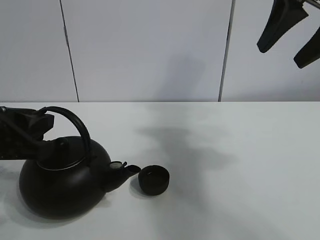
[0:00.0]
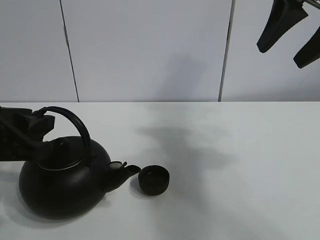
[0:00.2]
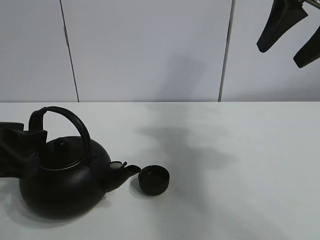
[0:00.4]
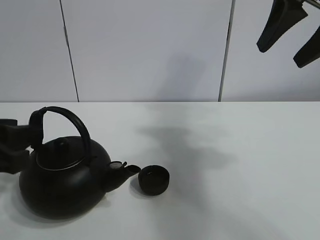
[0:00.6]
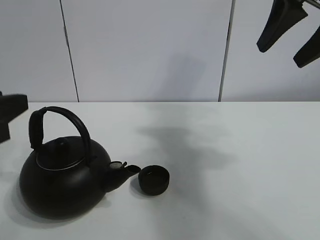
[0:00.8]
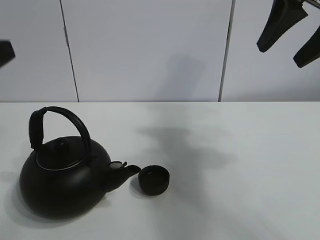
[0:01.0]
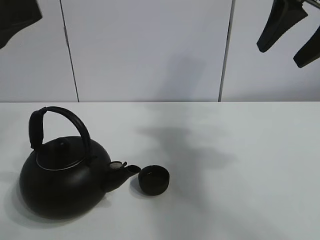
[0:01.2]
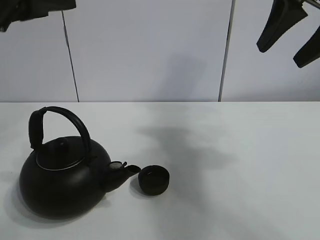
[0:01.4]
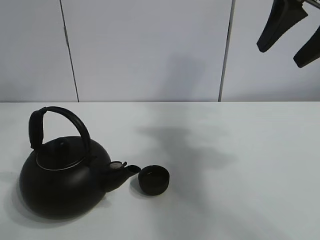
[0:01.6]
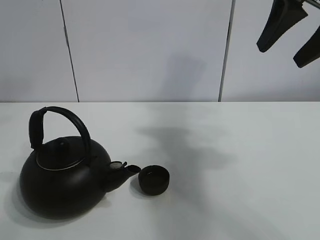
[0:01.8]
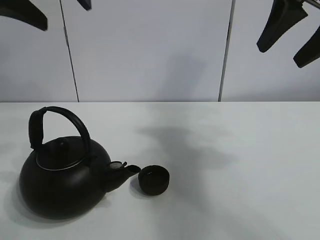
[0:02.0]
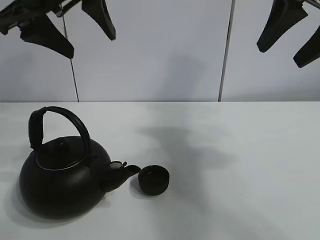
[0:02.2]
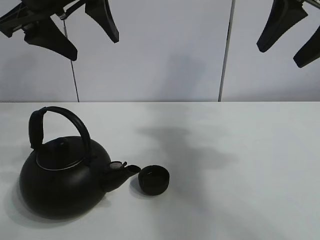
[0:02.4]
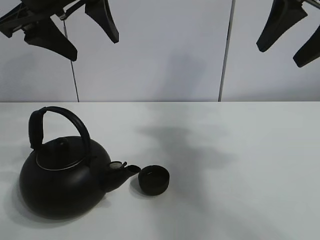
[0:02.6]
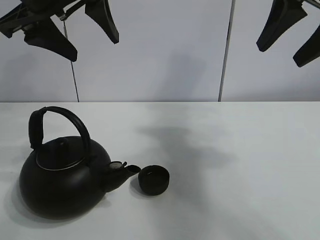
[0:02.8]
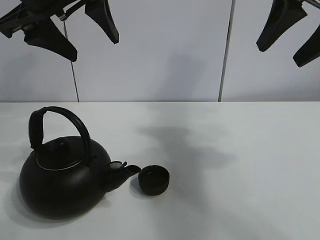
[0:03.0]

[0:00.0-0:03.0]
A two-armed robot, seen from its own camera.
Task of the whole recording: pour tea into the teacup.
0.0 to 1.6 s: The left gripper moves upward, about 20 cm, and opens.
1.6 to 3.0 s: The left gripper moves forward, about 5 cm.

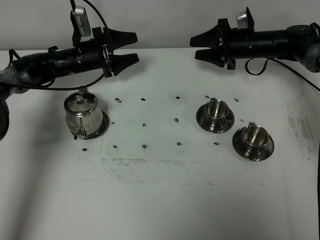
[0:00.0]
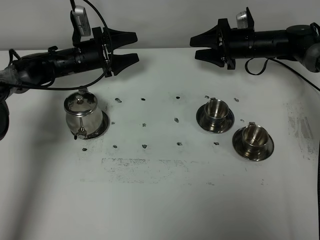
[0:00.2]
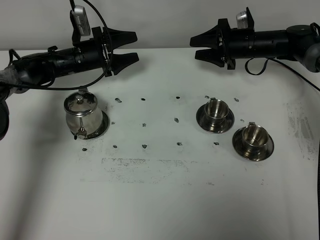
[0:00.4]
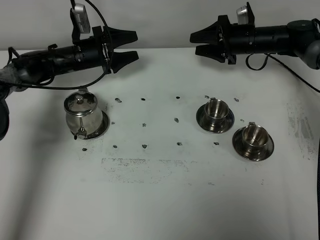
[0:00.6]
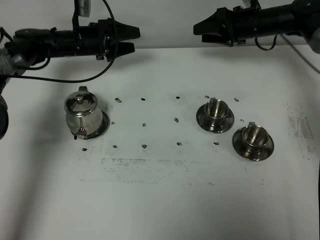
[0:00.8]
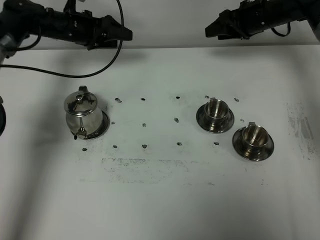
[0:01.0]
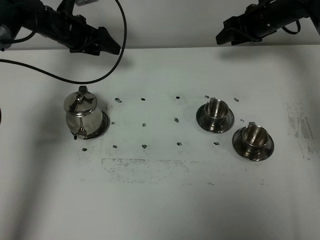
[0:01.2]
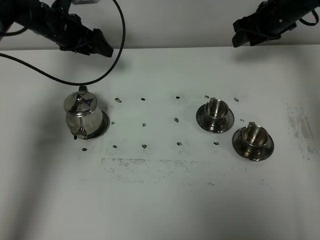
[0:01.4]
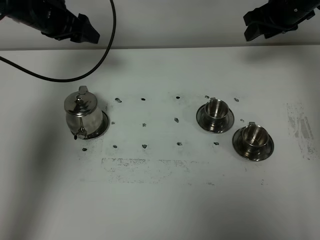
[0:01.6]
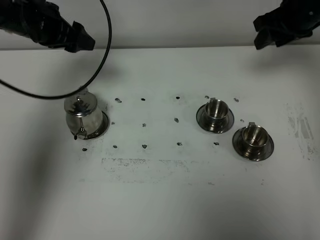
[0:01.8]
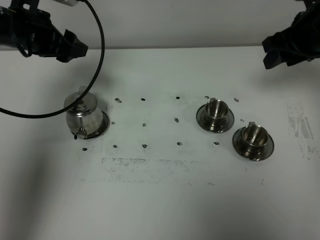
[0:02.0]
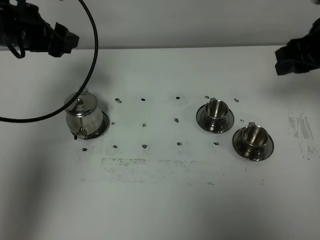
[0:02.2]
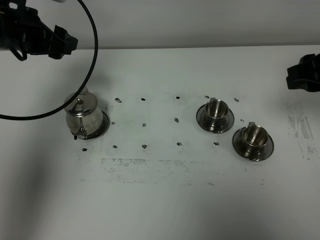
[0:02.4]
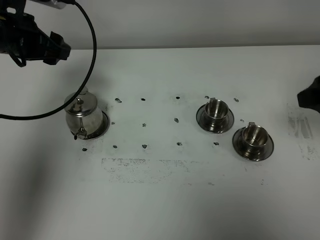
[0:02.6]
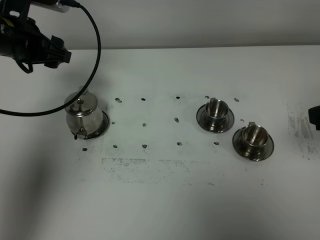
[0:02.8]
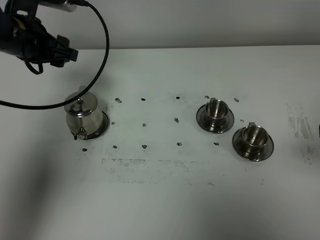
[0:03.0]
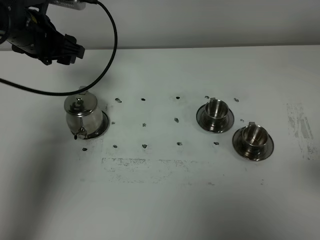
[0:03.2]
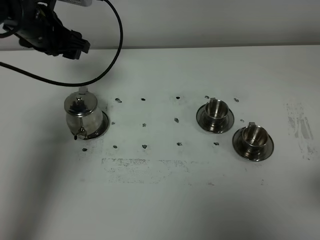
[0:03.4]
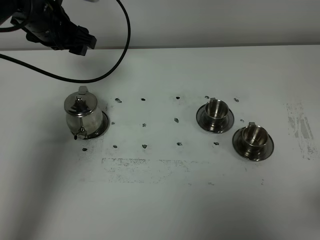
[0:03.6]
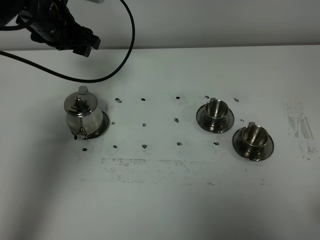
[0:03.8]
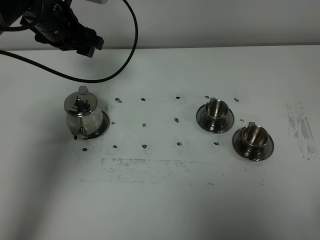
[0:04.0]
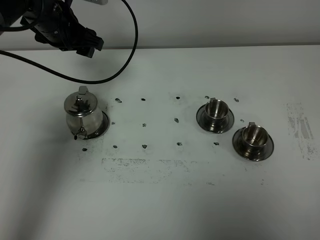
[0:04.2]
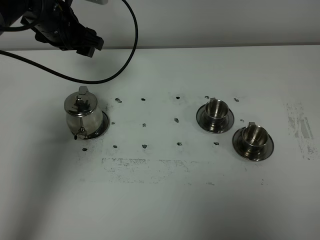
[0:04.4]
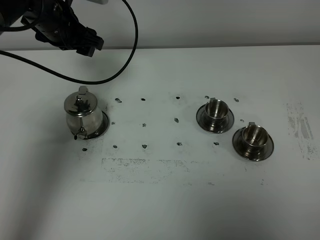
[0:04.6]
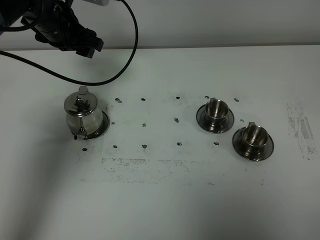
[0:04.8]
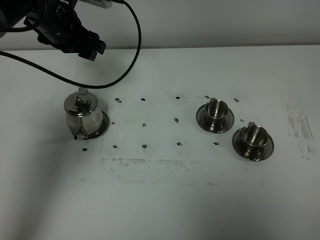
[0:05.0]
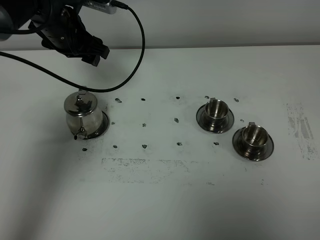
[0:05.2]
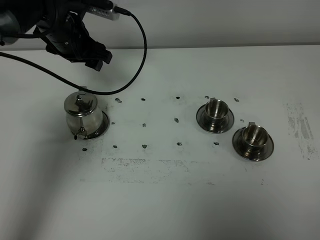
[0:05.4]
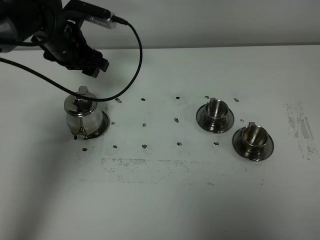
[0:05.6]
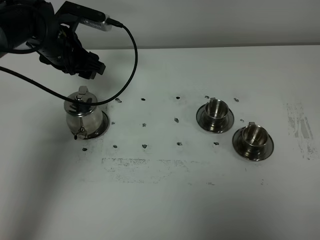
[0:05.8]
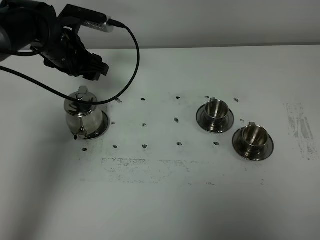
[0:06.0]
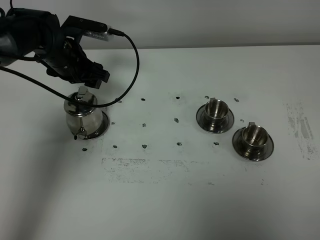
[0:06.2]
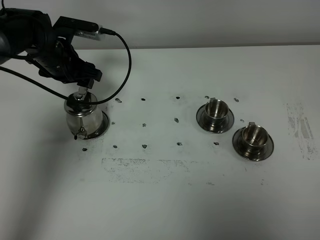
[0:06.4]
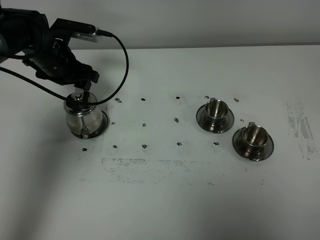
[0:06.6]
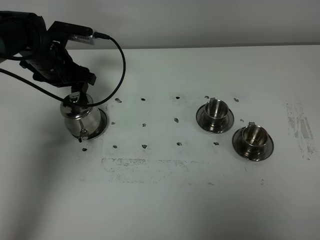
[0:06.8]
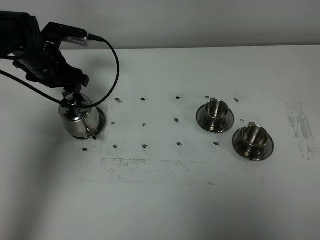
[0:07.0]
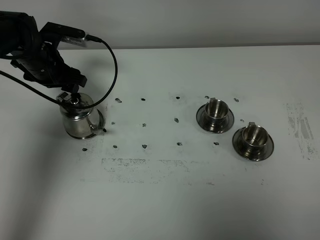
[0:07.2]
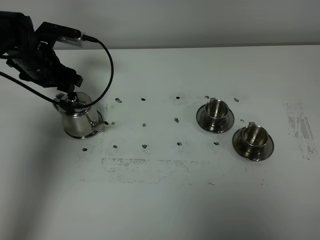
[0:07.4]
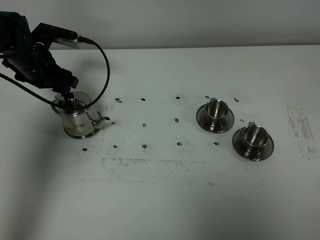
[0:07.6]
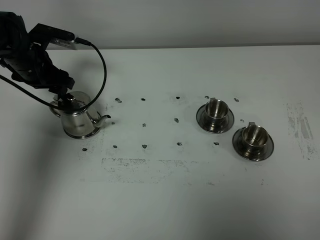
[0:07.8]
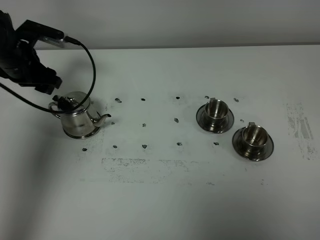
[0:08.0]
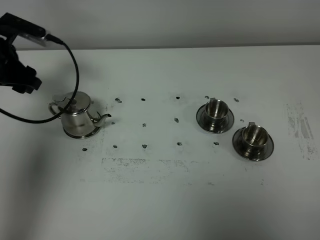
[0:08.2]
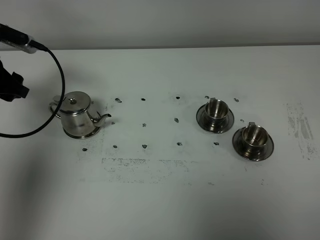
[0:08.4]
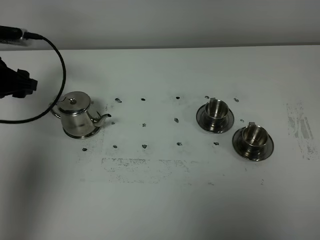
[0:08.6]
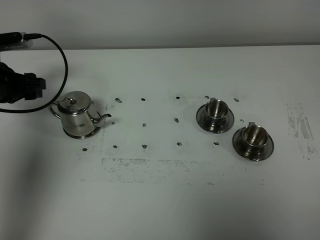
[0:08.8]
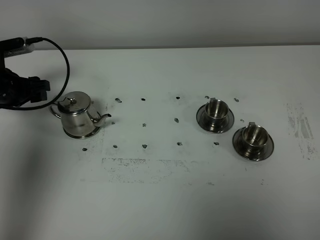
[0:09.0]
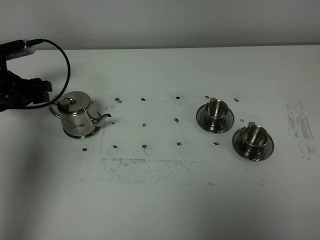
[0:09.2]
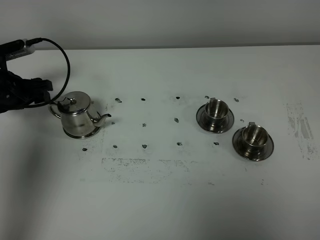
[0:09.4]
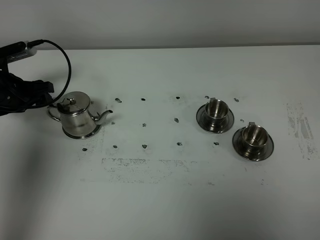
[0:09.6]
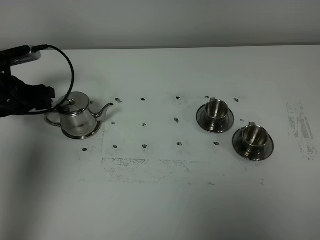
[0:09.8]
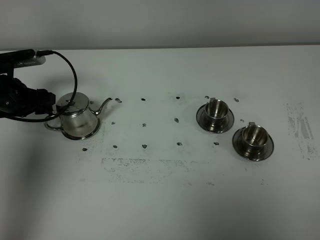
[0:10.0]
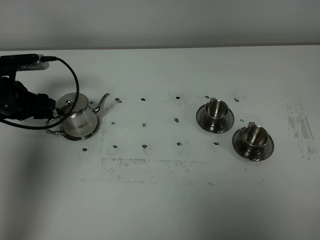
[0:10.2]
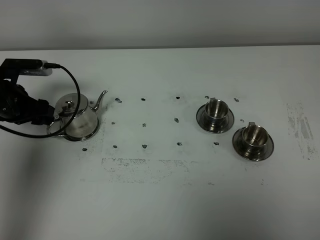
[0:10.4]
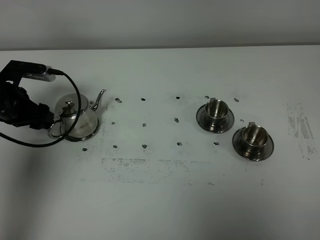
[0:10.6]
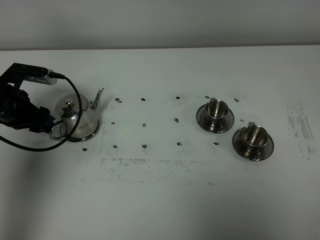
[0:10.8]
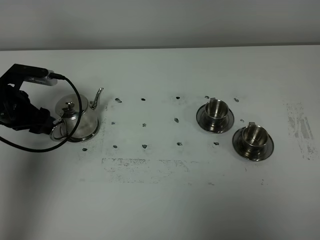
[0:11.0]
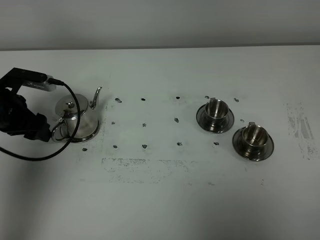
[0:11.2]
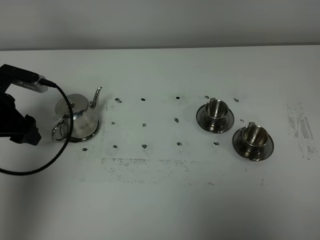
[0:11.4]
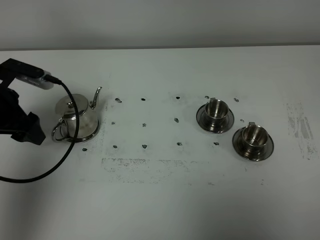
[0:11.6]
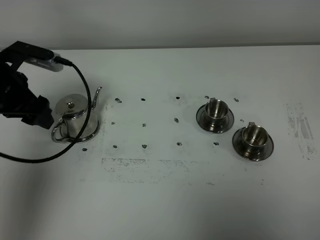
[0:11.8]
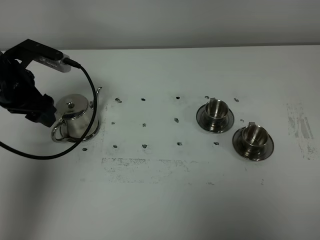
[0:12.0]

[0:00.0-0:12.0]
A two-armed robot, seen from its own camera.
Task of the whole recording: grasp the stainless steel teapot and pour the tea into the two stainless steel teacups one by one, put the stainless steel teapot back in its original place.
0.0 to 1.6 s: The two grippers go about 15 cm upward.
1.6 to 3.0 s: The left gripper heads backward, covering roughly 10 cm, while the right gripper heads backward, covering about 35 cm.
3.0 to 4.4 s: The right gripper goes roughly 15 cm backward, and closes. The left gripper heads forward, covering about 5 cm.
4.4 to 6.0 s: The left gripper moves downward, roughly 5 cm.
6.0 to 7.6 s: The left gripper moves to the left, approximately 5 cm.
7.6 to 9.0 s: The left gripper travels to the left and backward by some 10 cm.
10.4 to 12.0 s: The left gripper goes roughly 10 cm upward and to the right.

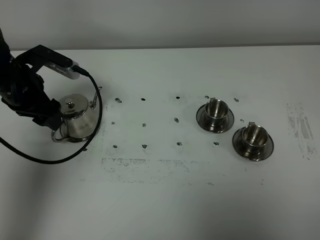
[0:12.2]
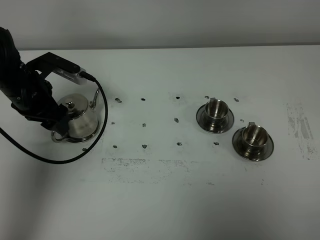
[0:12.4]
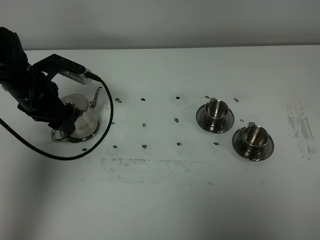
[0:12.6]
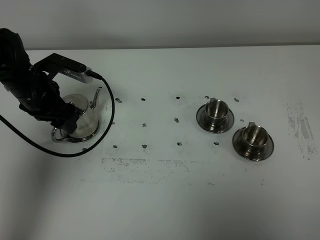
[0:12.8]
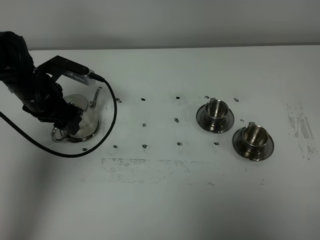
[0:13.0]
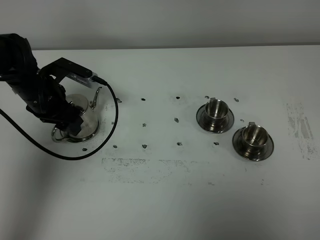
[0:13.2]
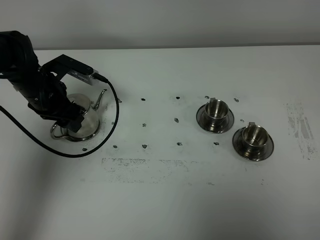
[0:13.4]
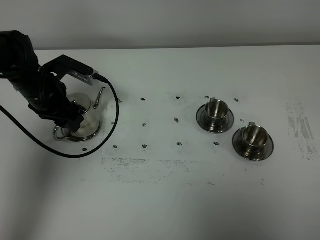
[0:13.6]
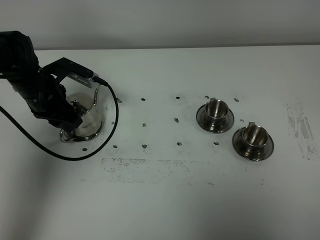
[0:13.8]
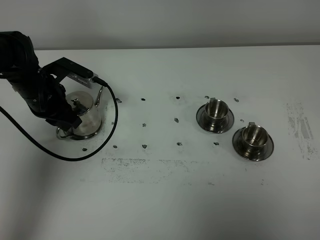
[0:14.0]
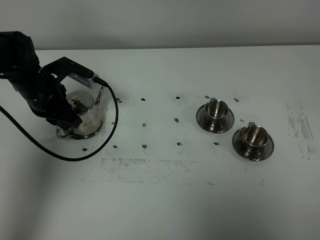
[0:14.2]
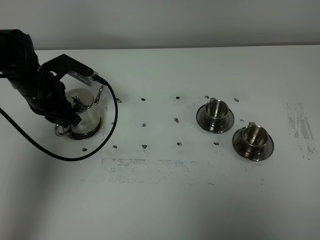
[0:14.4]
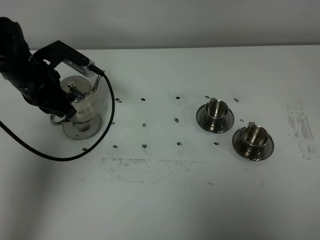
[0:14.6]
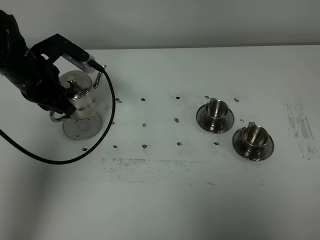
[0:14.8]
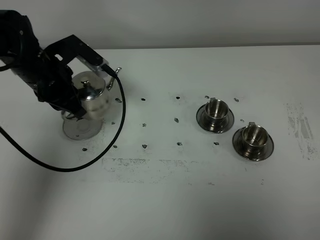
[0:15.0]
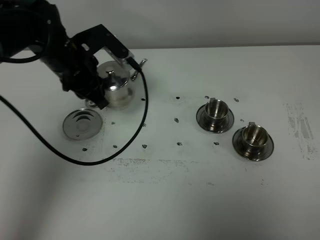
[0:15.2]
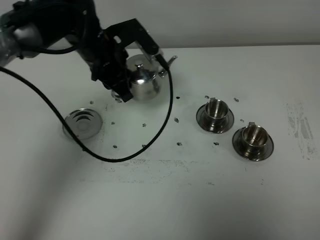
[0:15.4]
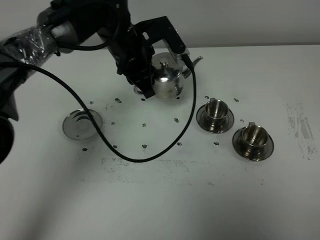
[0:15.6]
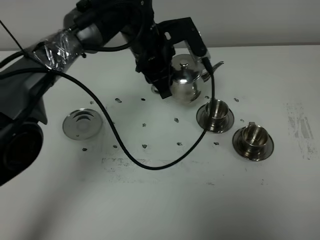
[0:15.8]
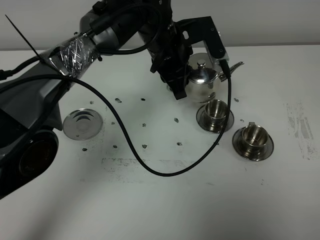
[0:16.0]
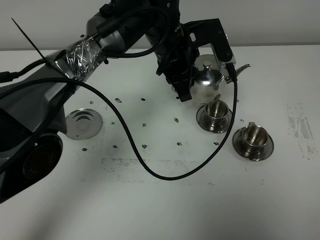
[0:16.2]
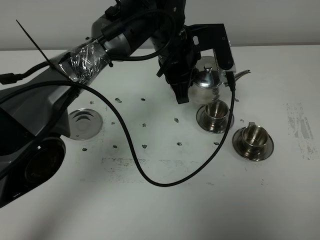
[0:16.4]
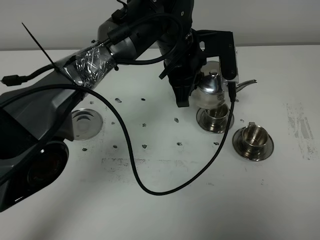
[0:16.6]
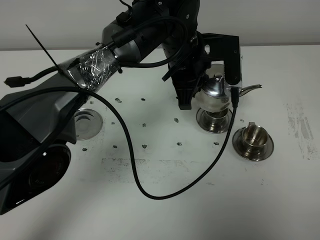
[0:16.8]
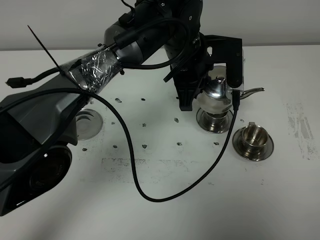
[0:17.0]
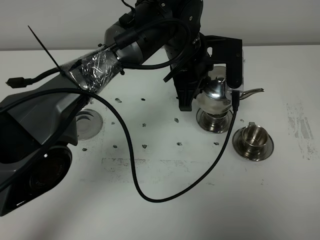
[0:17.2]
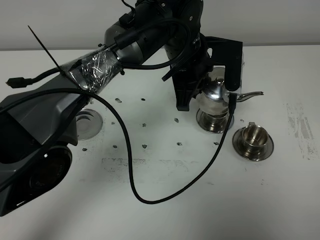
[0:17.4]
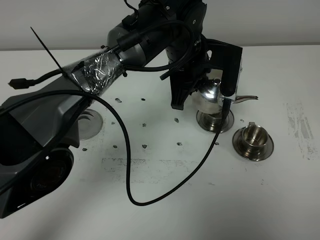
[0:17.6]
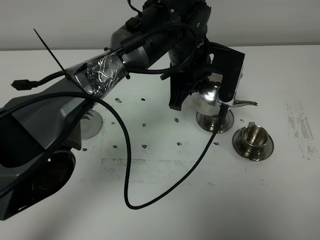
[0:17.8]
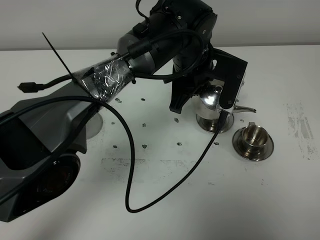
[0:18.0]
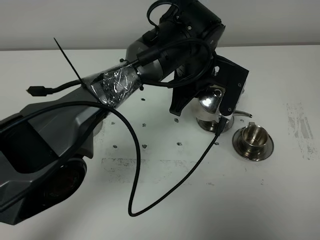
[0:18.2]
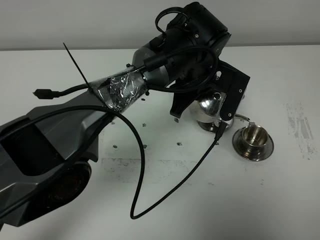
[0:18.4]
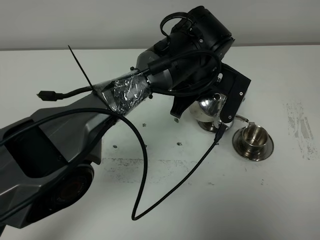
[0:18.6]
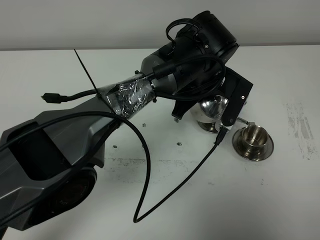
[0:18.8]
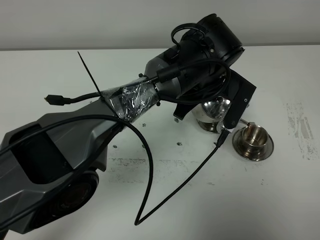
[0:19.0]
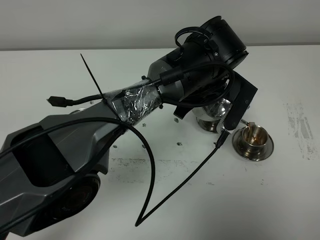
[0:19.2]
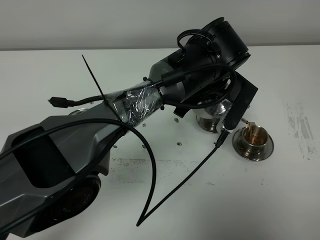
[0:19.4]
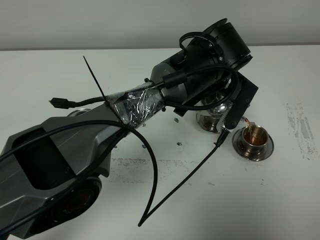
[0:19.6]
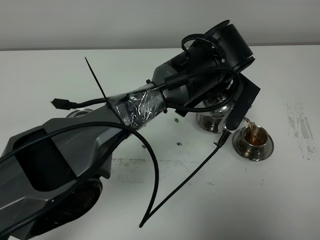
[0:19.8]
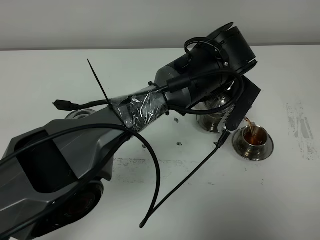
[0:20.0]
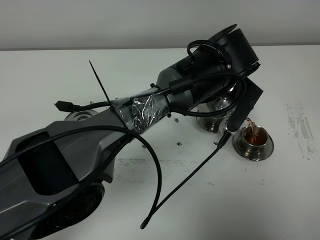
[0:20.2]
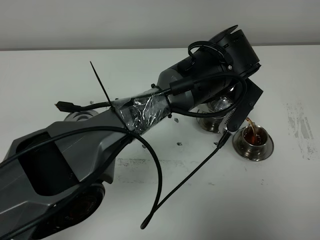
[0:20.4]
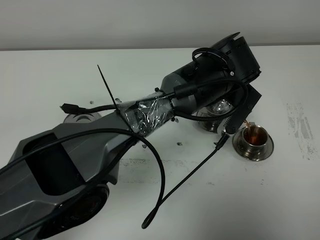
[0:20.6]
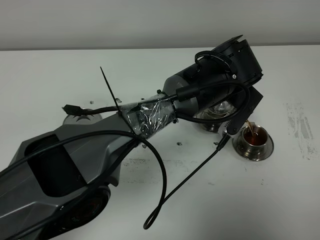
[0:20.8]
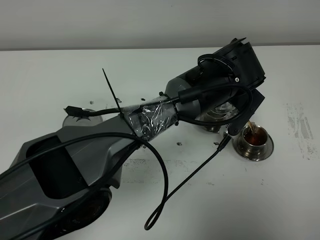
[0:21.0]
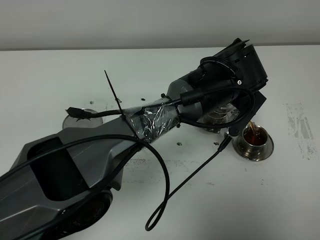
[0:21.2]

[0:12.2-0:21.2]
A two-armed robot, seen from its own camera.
Task of the whole recording: grasp the stainless steel teapot and pour the tea into the two stainless steel teacups one by one, put the stainless steel teapot back in its original place.
Step, 12.2 to 14.4 s: Pick up the teapot with the left gripper.
12.2 to 13.8 s: The left gripper ends up some 5 cm from where it was, and closes its fingers.
13.8 to 15.2 s: The left gripper heads to the right and upward, covering approximately 10 cm.
15.2 to 16.6 s: The left gripper is displaced to the right by roughly 20 cm.
